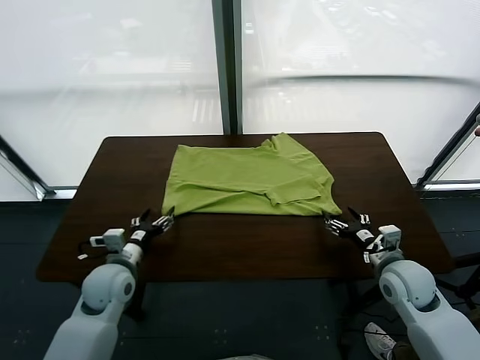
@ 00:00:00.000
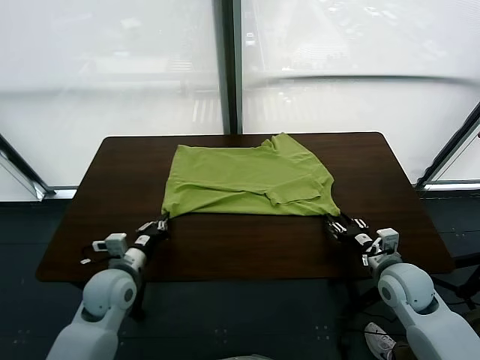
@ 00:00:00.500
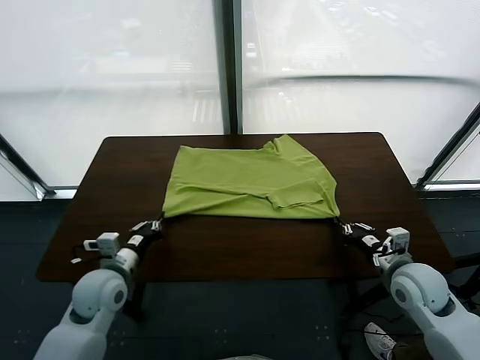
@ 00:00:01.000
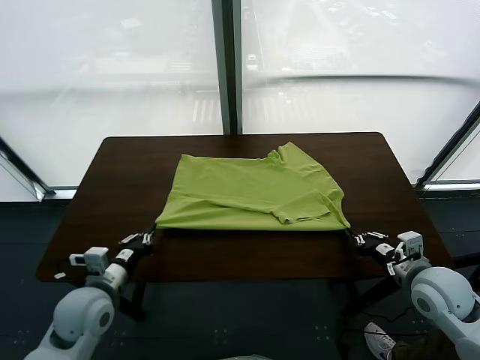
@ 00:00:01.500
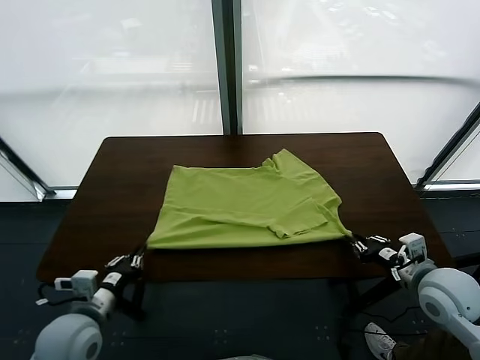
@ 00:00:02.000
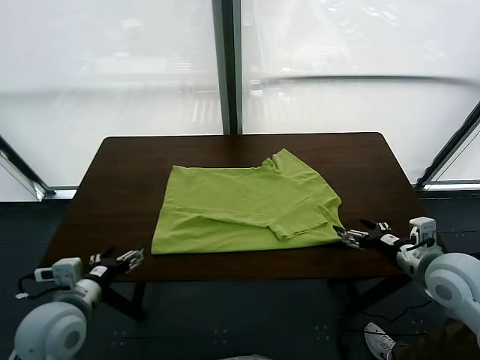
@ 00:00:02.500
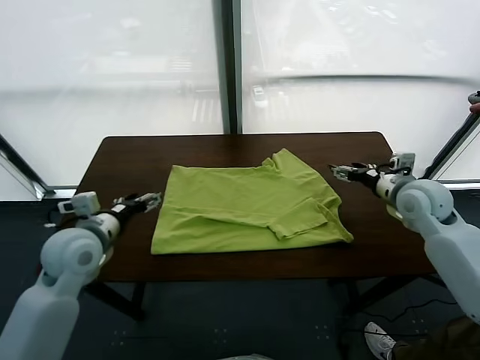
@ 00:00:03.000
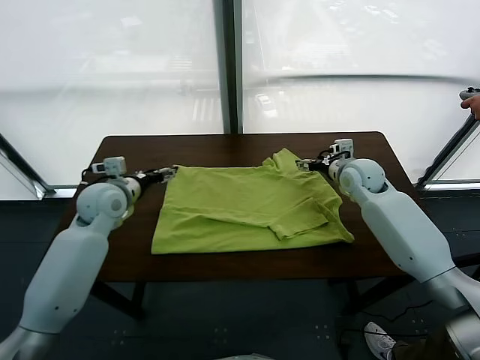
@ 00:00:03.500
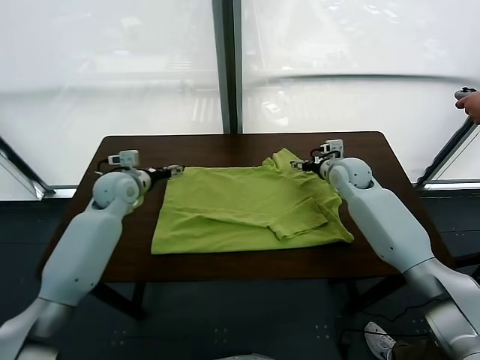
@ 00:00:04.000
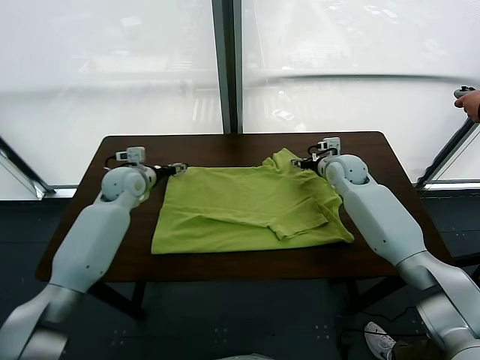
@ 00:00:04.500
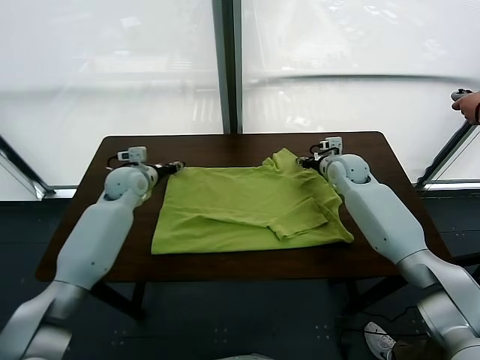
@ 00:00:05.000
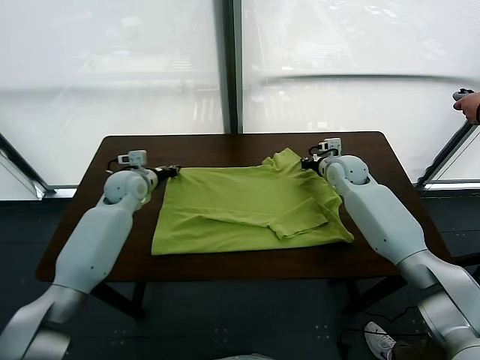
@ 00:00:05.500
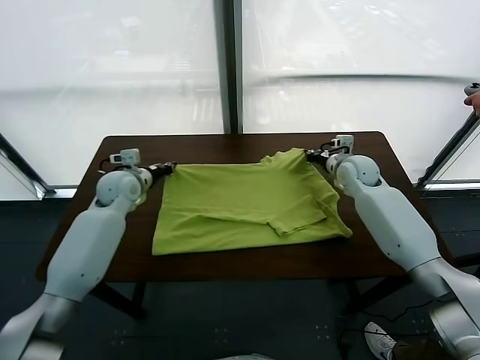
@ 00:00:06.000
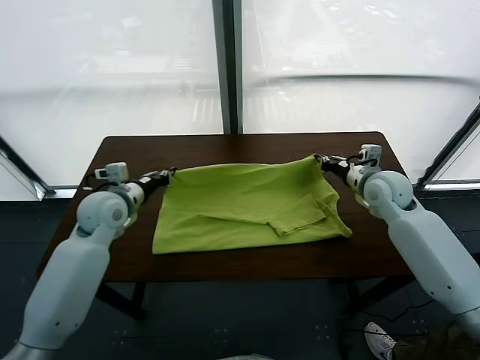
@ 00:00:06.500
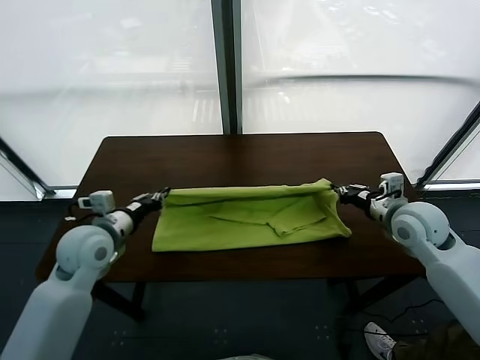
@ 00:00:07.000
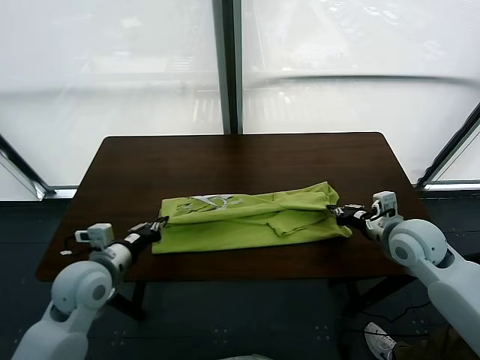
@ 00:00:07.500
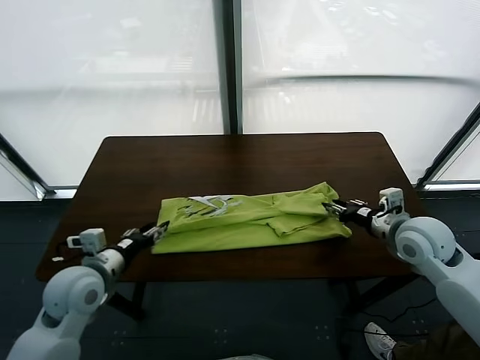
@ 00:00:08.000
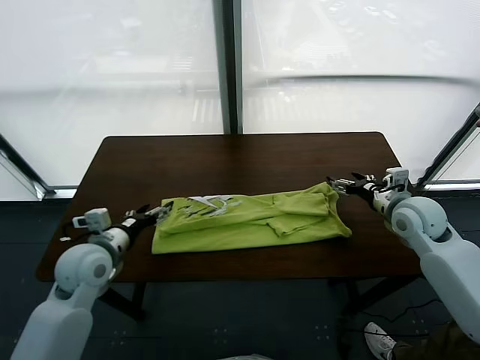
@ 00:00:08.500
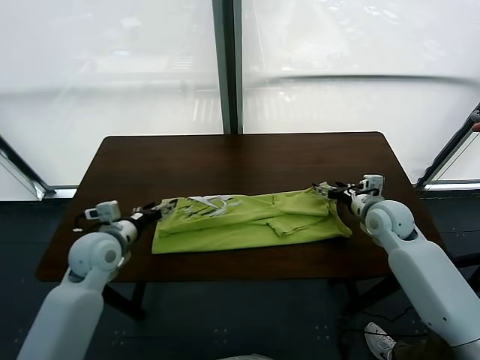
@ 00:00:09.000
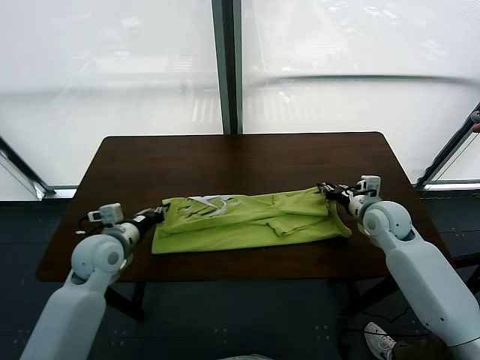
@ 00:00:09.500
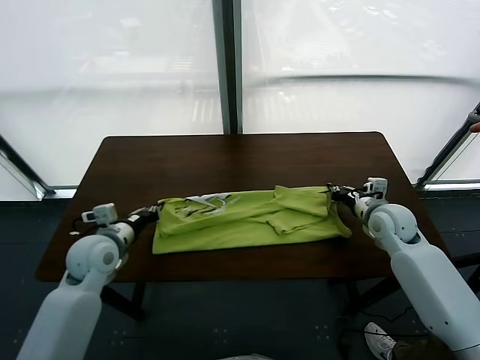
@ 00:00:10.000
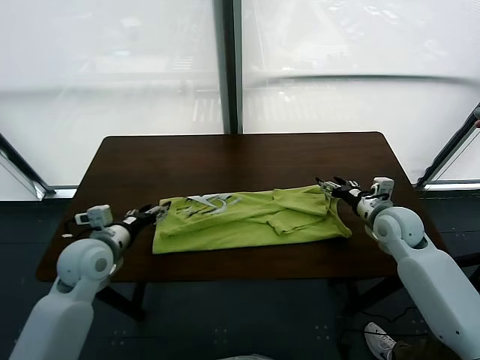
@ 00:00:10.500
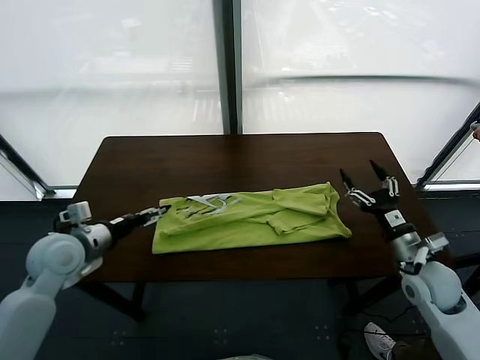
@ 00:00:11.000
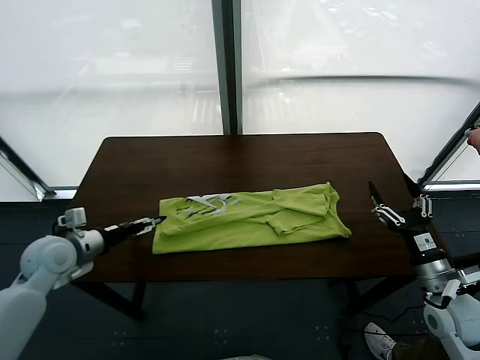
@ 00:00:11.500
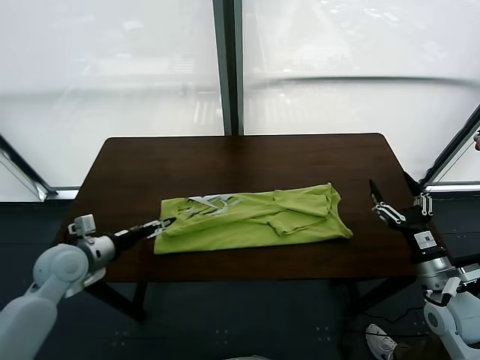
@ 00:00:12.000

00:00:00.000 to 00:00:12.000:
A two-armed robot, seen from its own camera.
Task of the whole recording: fold and organize the clothes.
Step, 00:00:00.000 to 00:00:02.000: Drag the clothes downward with both gripper.
Step, 00:00:02.500 to 00:00:05.500: use both grippers simultaneously to clamp the upper edge of the clothing fabric.
Step, 00:00:06.000 to 00:00:08.000: use both grippers to drag the upper edge of the fabric backward and fold it over the lower edge.
00:00:00.000 to 00:00:02.000: The left gripper travels backward and upward by approximately 10 cm, and closes, then opens again; the right gripper is displaced upward by approximately 10 cm, and closes, then opens again.
00:00:02.000 to 00:00:04.000: Both grippers move forward, some 30 cm. The left gripper opens up.
00:00:04.000 to 00:00:06.000: The left gripper closes. The right gripper closes its fingers.
00:00:06.000 to 00:00:08.000: The grippers both shift backward by approximately 20 cm. The right gripper opens its fingers; the left gripper opens.
00:00:08.000 to 00:00:10.000: The left gripper shifts about 5 cm forward, and closes up, while the right gripper moves downward and forward, about 10 cm, and closes its fingers.
00:00:10.000 to 00:00:12.000: The right gripper goes approximately 20 cm backward, and opens. Meanwhile the left gripper travels to the left by roughly 5 cm, and opens its fingers.

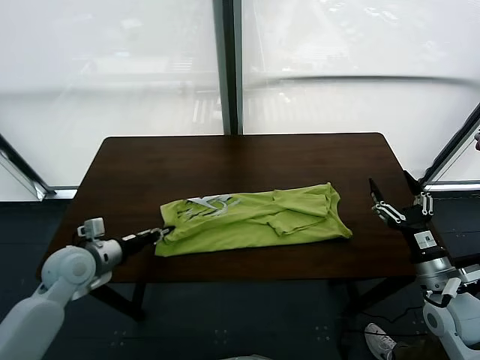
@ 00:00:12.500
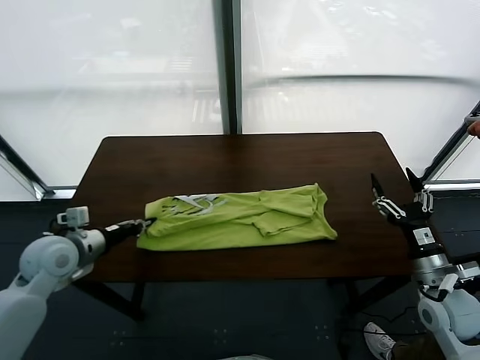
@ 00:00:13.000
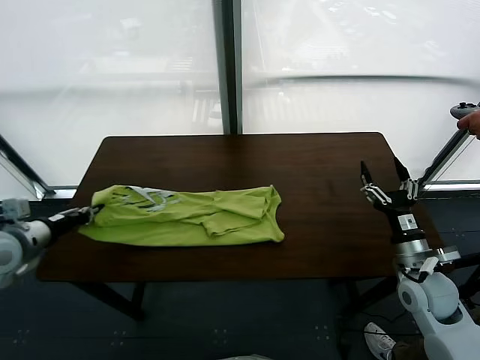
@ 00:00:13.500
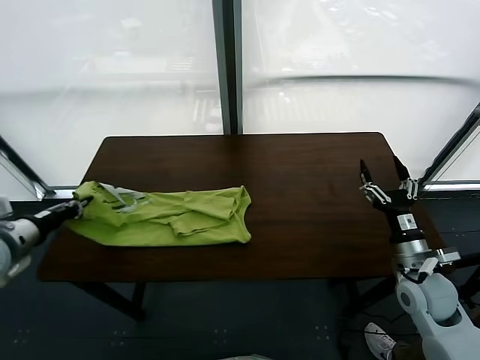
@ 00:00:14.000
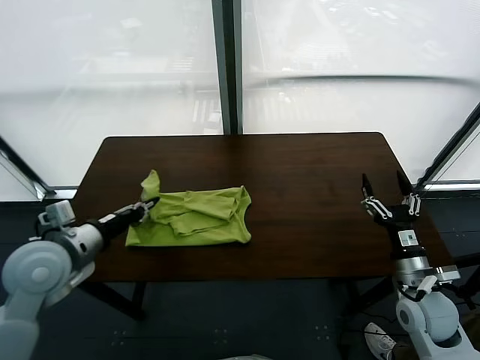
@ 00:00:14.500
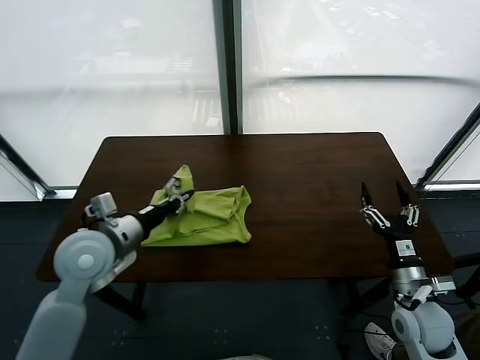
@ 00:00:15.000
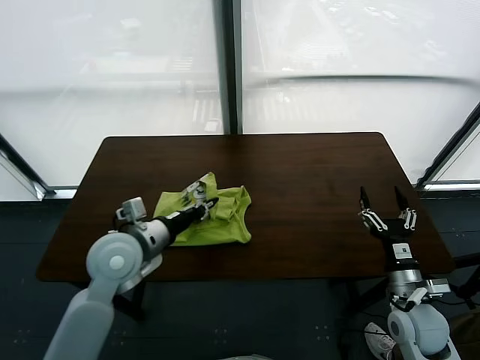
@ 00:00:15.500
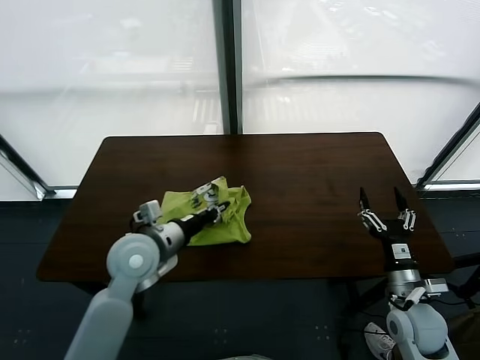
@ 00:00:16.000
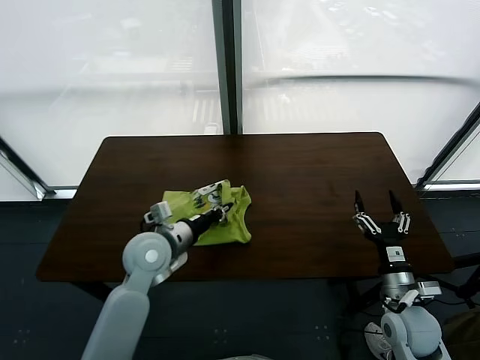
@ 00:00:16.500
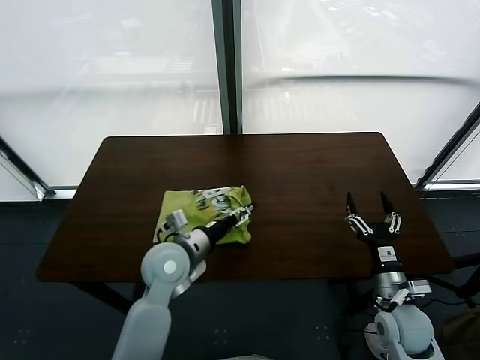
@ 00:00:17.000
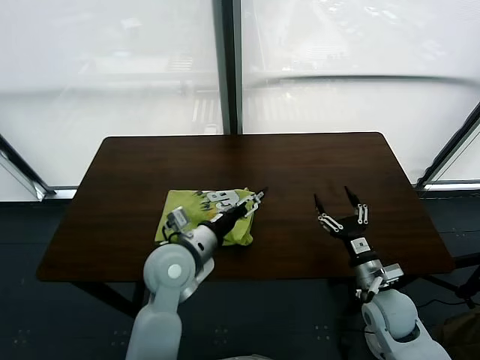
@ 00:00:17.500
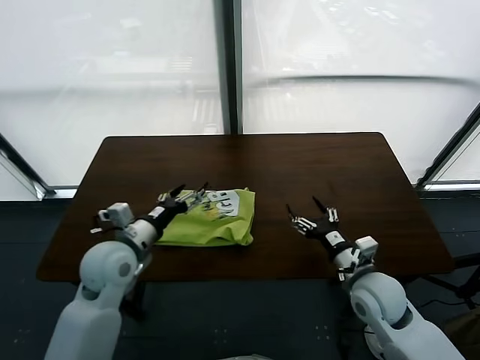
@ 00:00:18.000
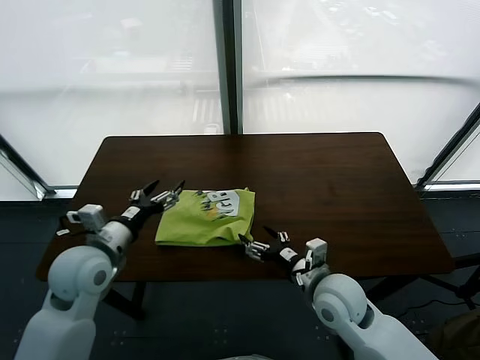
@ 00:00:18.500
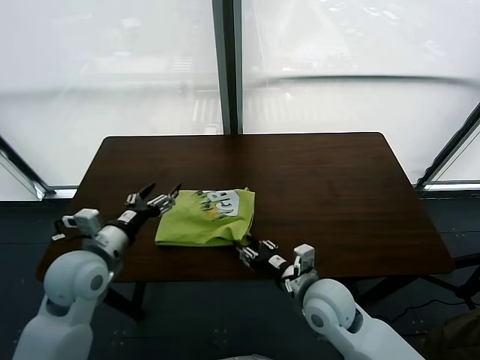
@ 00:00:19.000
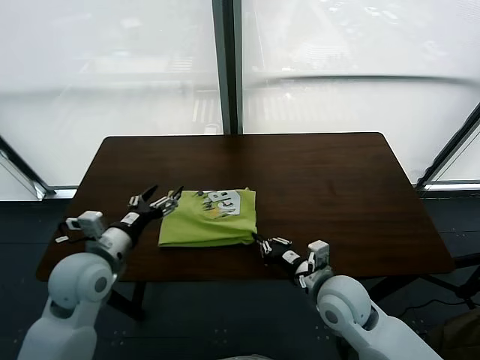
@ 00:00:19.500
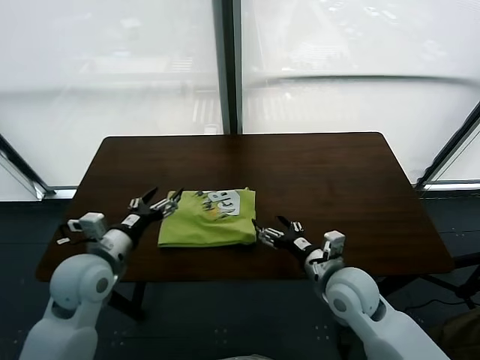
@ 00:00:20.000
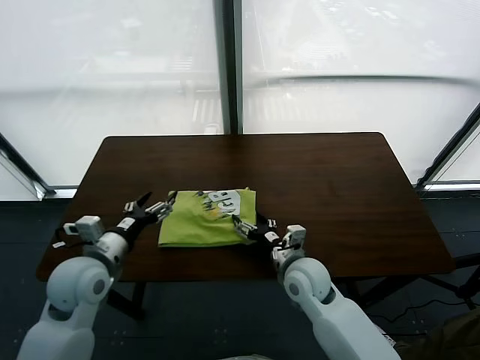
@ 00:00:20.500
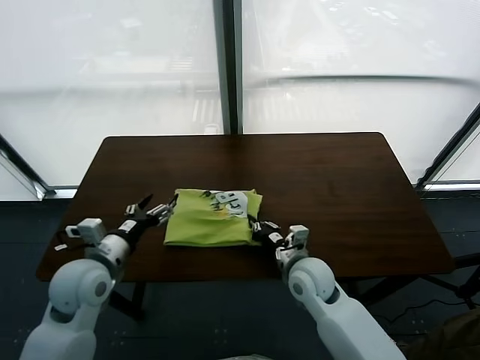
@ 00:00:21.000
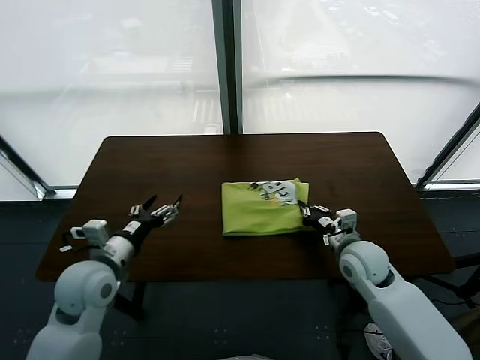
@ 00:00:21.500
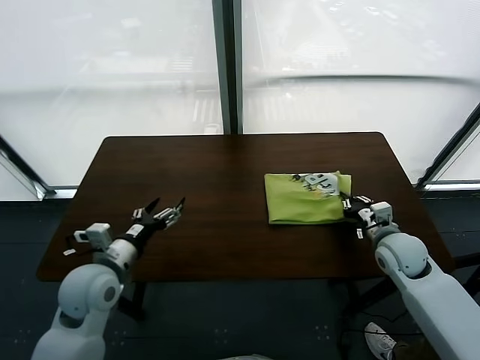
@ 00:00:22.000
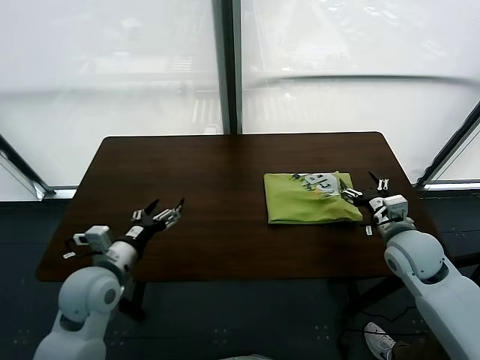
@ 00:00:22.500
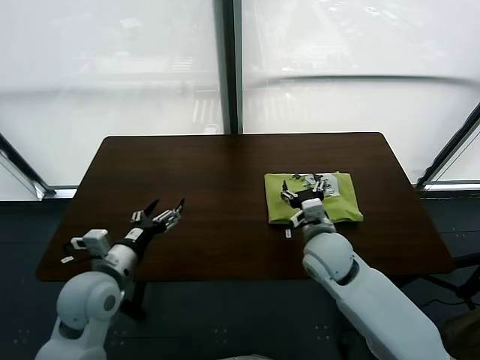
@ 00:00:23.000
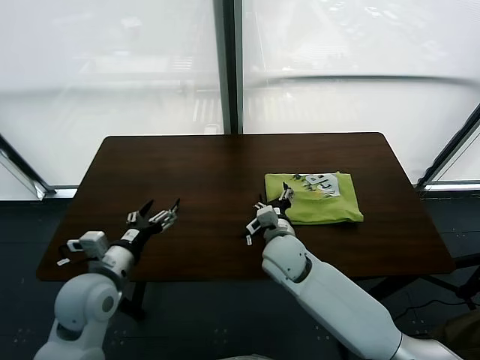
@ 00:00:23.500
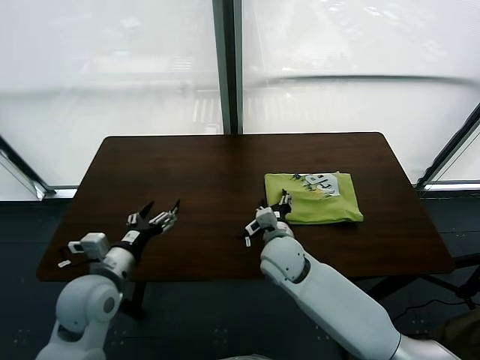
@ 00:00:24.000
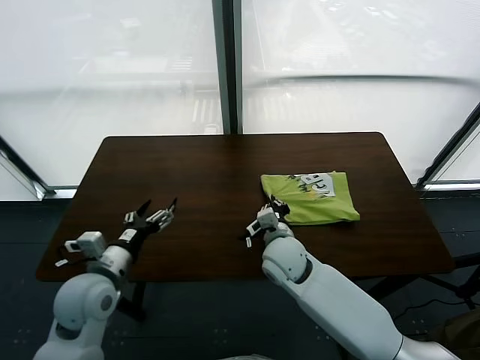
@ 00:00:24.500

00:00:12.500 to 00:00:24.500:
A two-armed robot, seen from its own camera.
Task of the whole recording: fold and organize the clothes.
Step, 00:00:13.000 to 00:00:17.000: use the left gripper to drag the left edge of the fabric to the left and folds it over the right edge.
Step, 00:00:17.500 to 00:00:22.000: Drag the clothes to the center of the table.
00:00:12.500 to 00:00:14.500: The left gripper moves upward, some 10 cm, and reaches approximately 10 cm to the left, then returns.
00:00:14.500 to 00:00:16.500: The left gripper travels to the right, downward and forward by roughly 15 cm.
00:00:16.500 to 00:00:18.500: The right gripper travels to the left by approximately 15 cm, while the left gripper is displaced to the left, upward and backward by about 10 cm, and opens up.
00:00:18.500 to 00:00:20.500: The right gripper goes approximately 5 cm forward, and closes and opens again.
00:00:20.500 to 00:00:22.500: The right gripper moves to the right and upward, about 20 cm, and closes and opens again.
00:00:22.500 to 00:00:24.500: The right gripper travels to the left by roughly 25 cm, and closes its fingers.

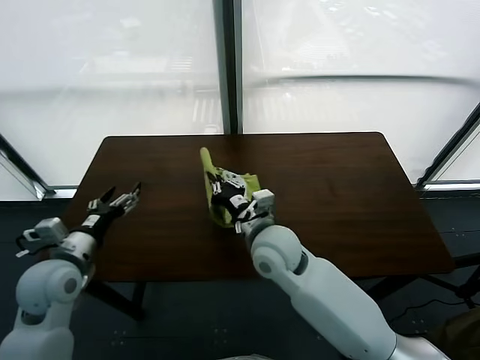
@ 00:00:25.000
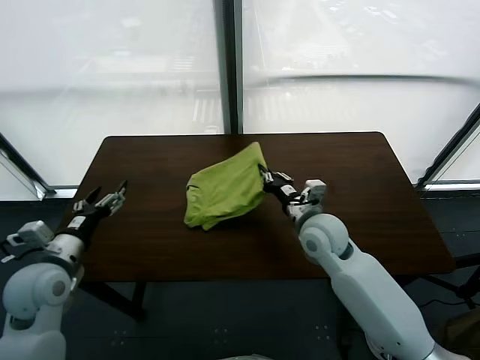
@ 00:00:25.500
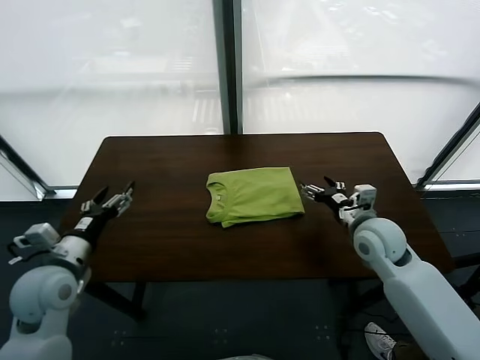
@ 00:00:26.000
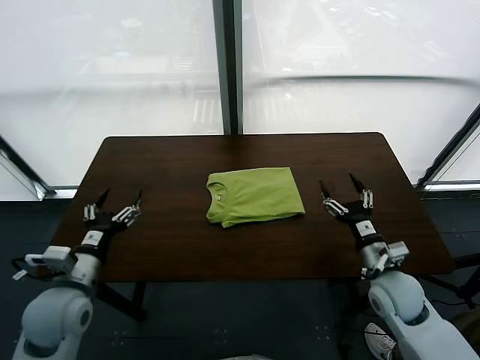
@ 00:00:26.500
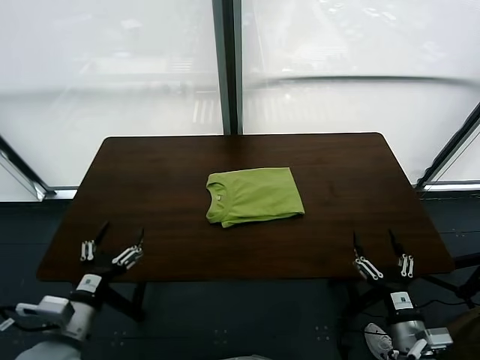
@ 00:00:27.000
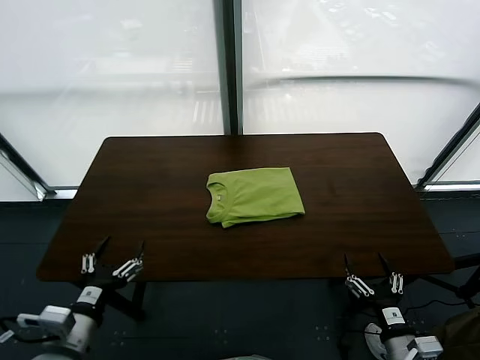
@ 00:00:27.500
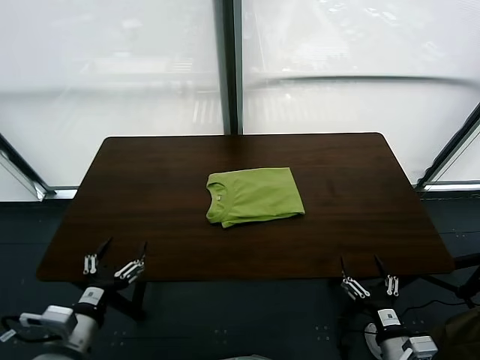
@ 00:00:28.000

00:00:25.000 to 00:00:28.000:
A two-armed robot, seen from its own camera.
Task of the whole recording: fold and organize the clothes.
00:00:25.000 to 00:00:26.500: The left gripper shifts by approximately 5 cm. The right gripper is displaced to the right by some 25 cm, and opens up.
00:00:26.500 to 00:00:28.000: The right gripper heads backward, covering approximately 20 cm; the left gripper shifts about 10 cm backward.
